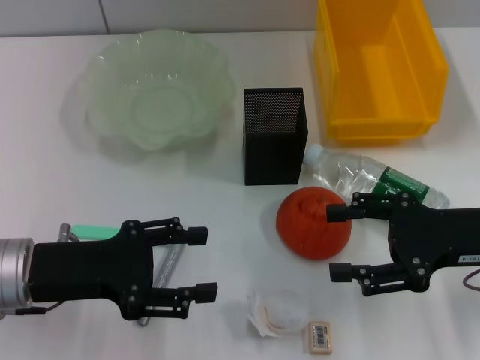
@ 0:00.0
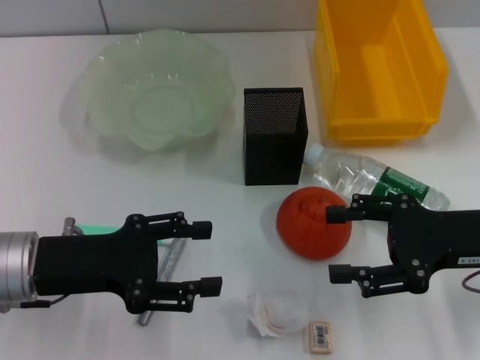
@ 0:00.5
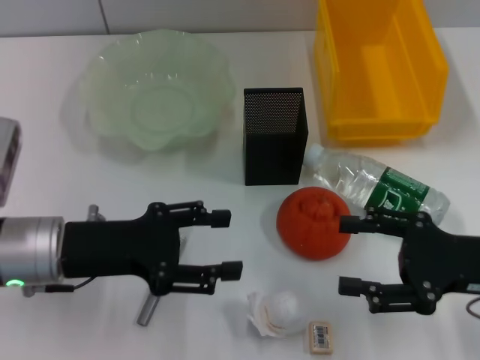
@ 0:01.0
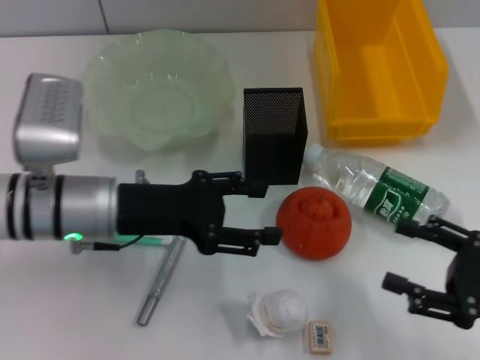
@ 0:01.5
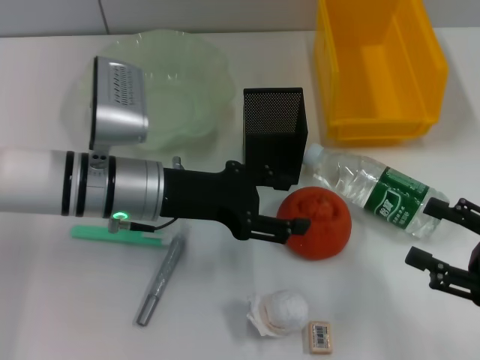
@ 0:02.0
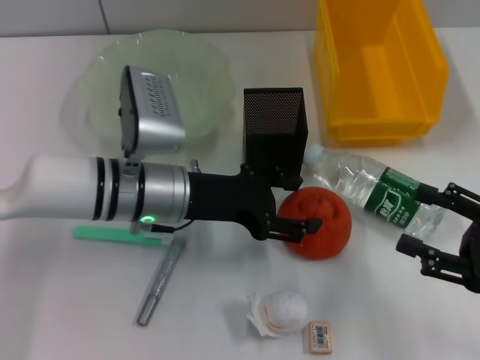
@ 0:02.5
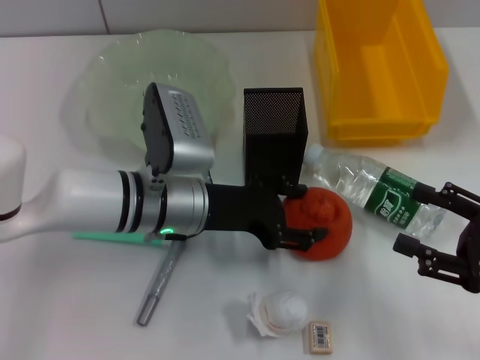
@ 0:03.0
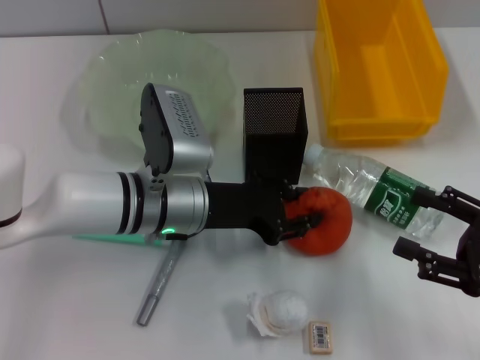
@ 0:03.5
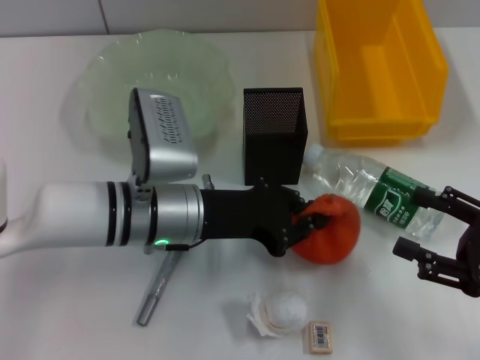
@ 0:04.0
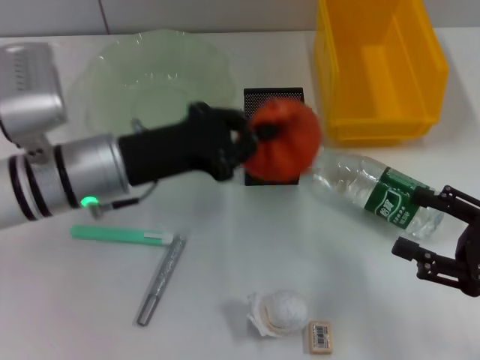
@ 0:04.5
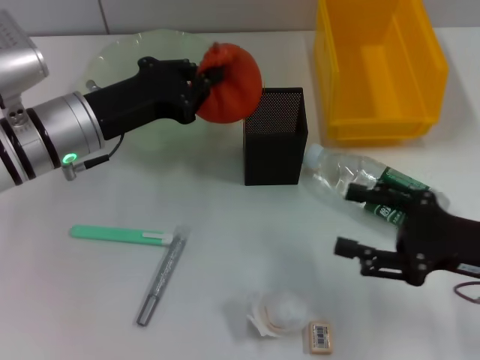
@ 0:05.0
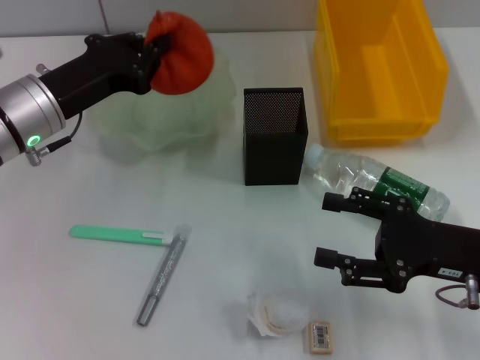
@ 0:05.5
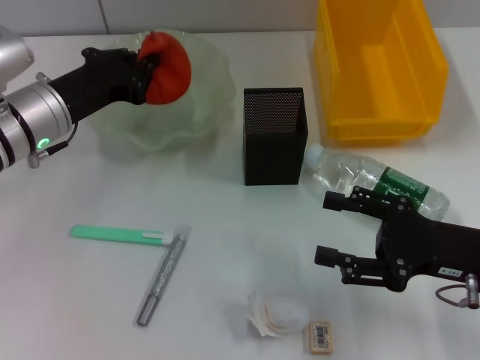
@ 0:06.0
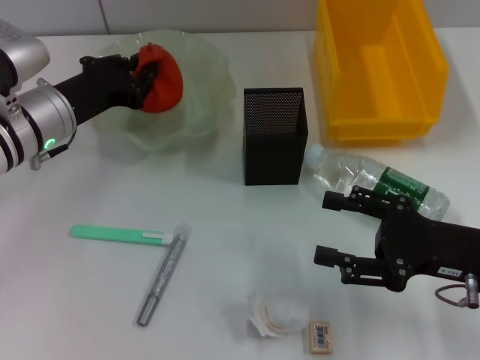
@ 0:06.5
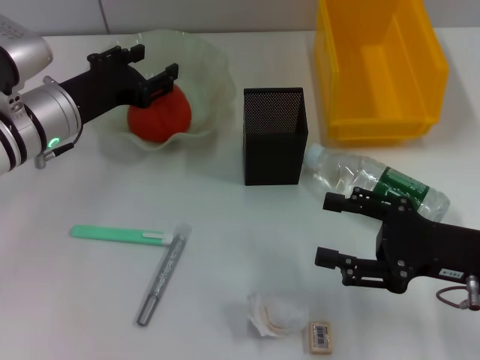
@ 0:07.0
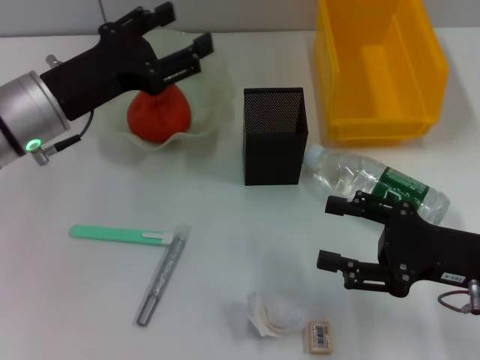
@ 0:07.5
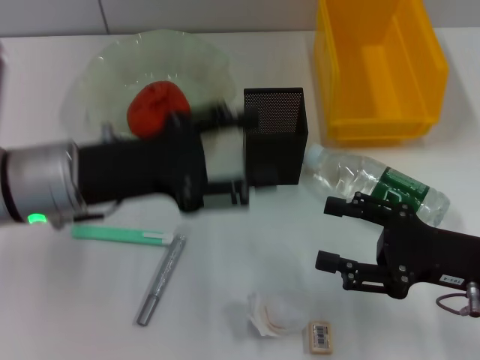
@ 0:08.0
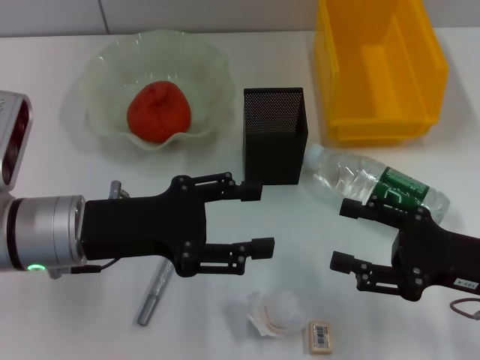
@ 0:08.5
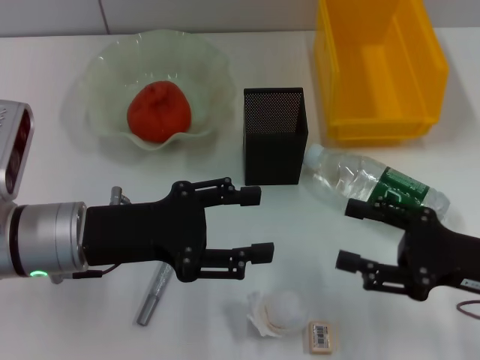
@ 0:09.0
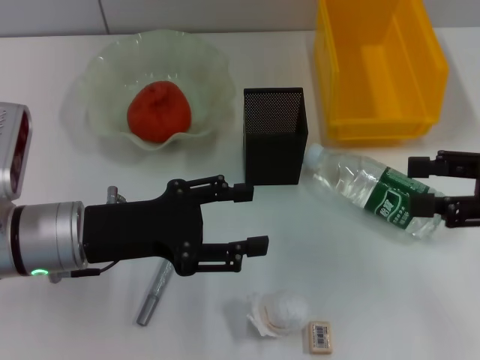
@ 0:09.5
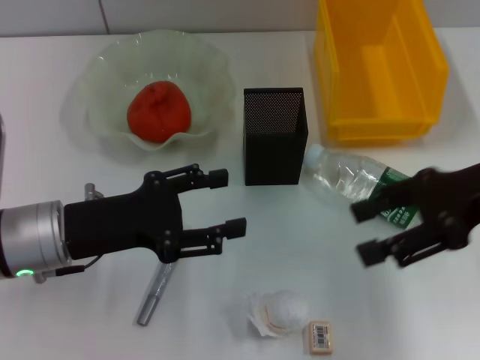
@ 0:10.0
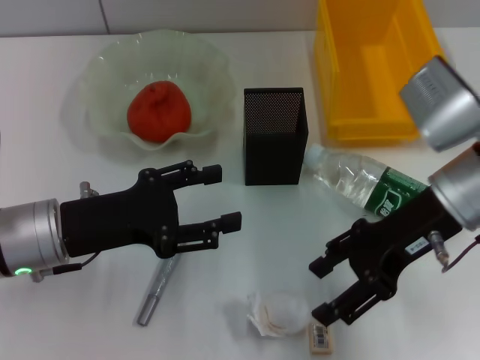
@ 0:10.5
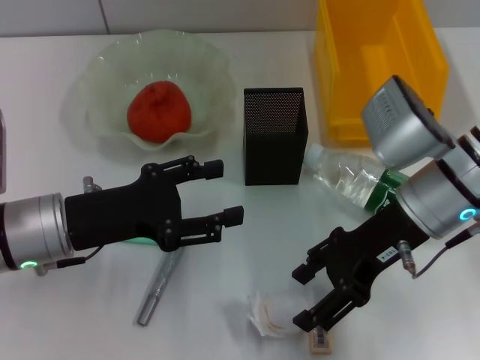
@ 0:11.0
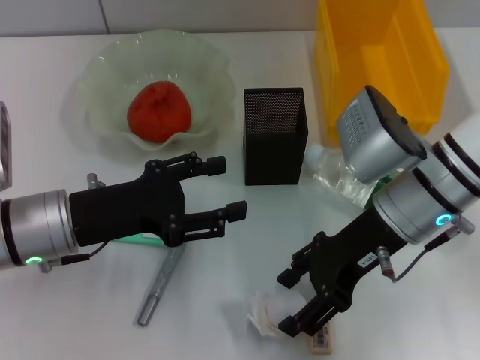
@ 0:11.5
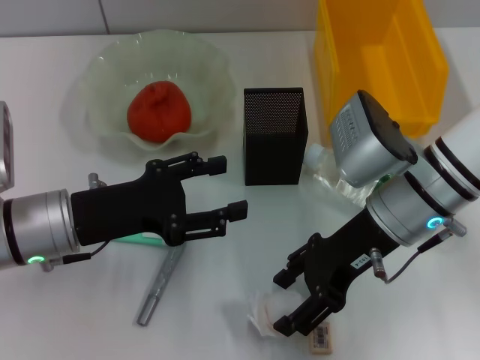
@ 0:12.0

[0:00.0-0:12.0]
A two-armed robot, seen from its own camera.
Step, 0:00.0 to 0:03.0: Grab the orange with the left hand.
Step, 0:03.5 to 0:06.5: Place the orange into the fruit bowl with the left hand.
Step, 0:07.0 to 0:12.0: Grab the paper ball with the right hand.
0:00.0 to 0:02.0: The right gripper is displaced backward and to the right by approximately 10 cm; the left gripper heads to the right and forward, covering some 15 cm.
0:02.0 to 0:04.0: The left gripper closes its fingers.
0:04.0 to 0:06.0: The right gripper is displaced to the left by roughly 5 cm. The left gripper heads to the left and forward, covering roughly 15 cm.
0:06.0 to 0:08.0: The left gripper goes some 5 cm backward, and opens.
0:08.0 to 0:10.0: The left gripper changes place by roughly 5 cm. Meanwhile the right gripper travels upward and forward by some 15 cm.
0:10.0 to 0:12.0: The right gripper shifts about 15 cm to the left and downward.

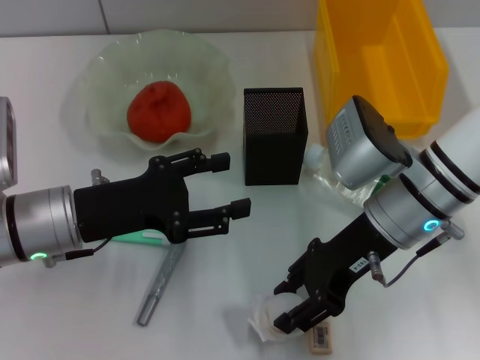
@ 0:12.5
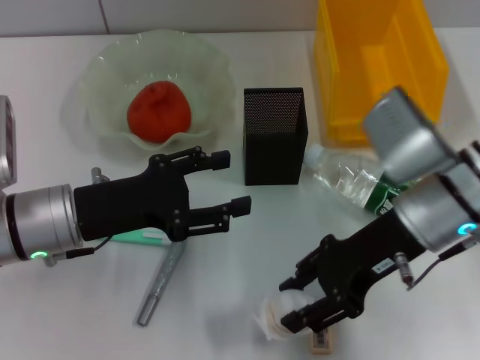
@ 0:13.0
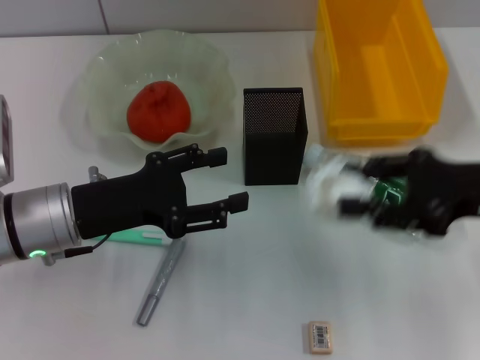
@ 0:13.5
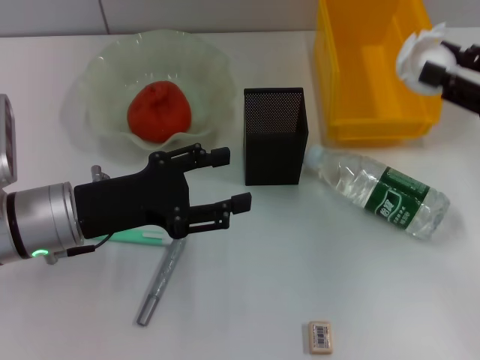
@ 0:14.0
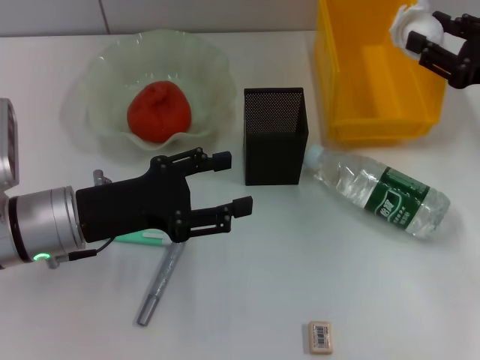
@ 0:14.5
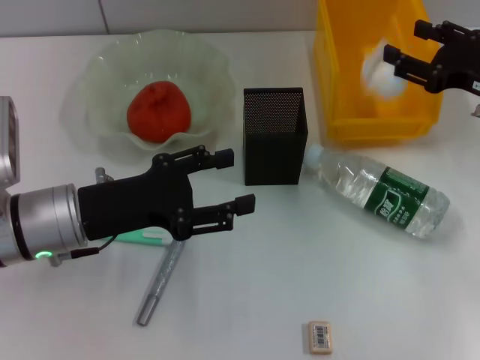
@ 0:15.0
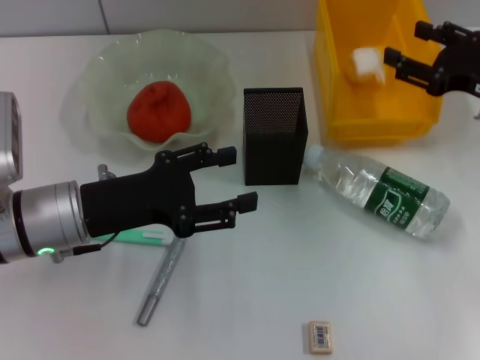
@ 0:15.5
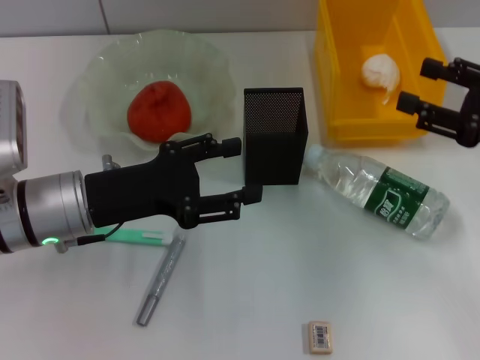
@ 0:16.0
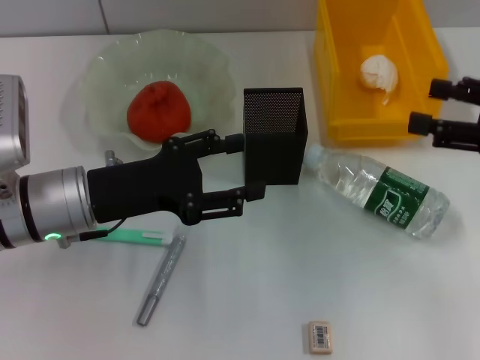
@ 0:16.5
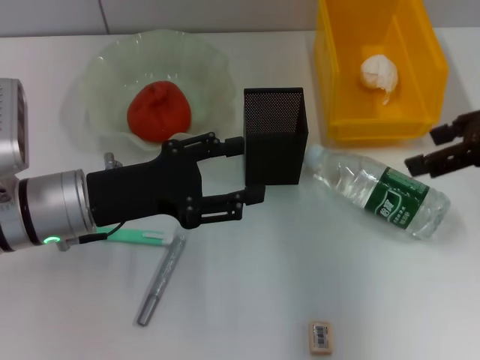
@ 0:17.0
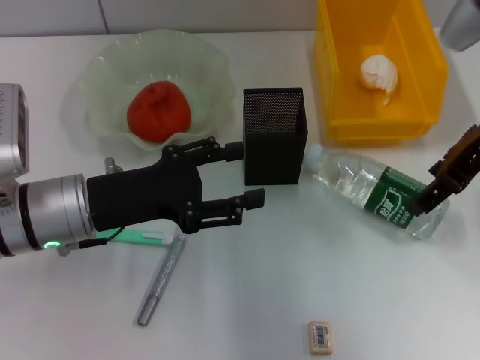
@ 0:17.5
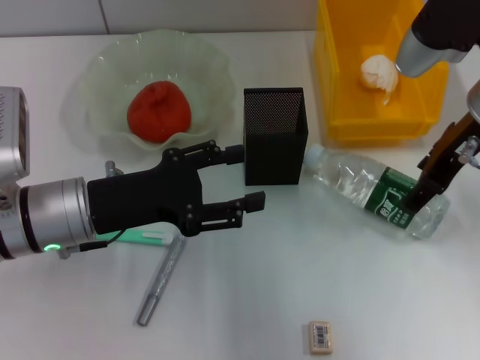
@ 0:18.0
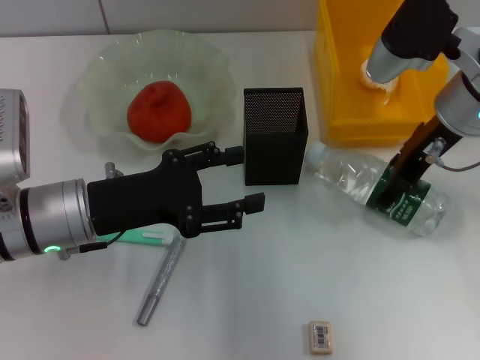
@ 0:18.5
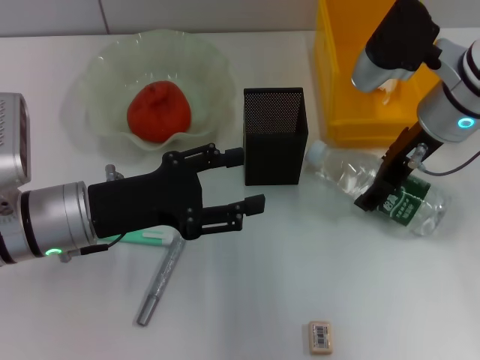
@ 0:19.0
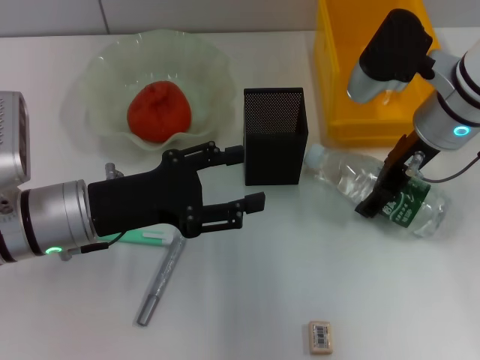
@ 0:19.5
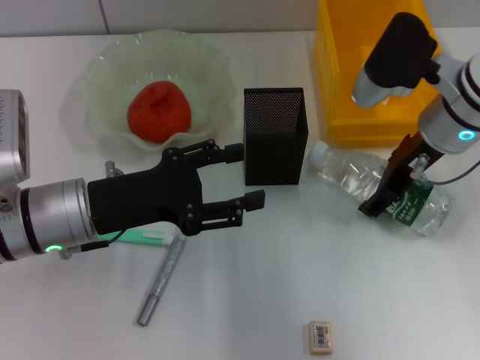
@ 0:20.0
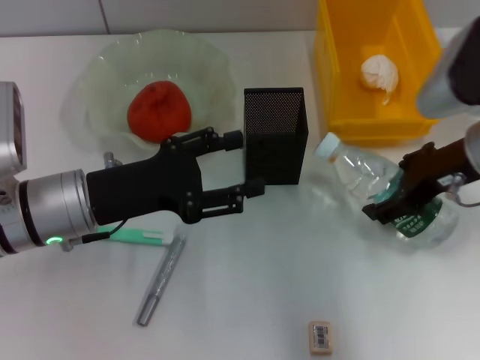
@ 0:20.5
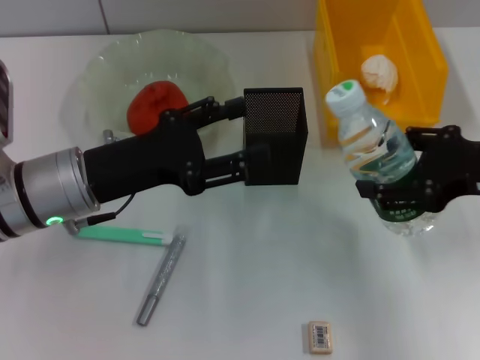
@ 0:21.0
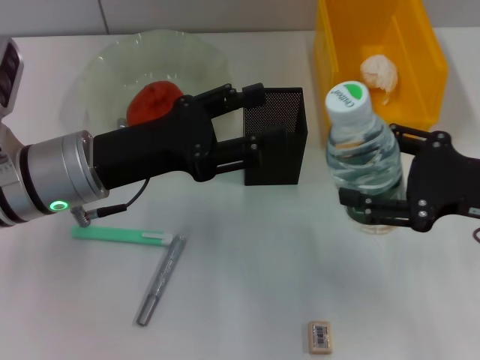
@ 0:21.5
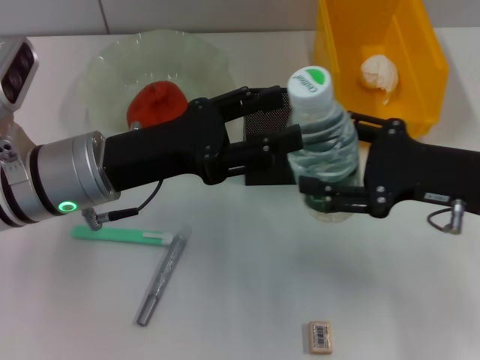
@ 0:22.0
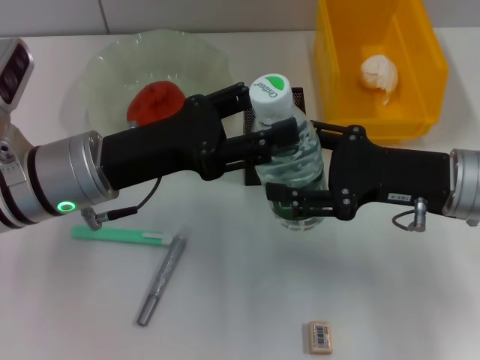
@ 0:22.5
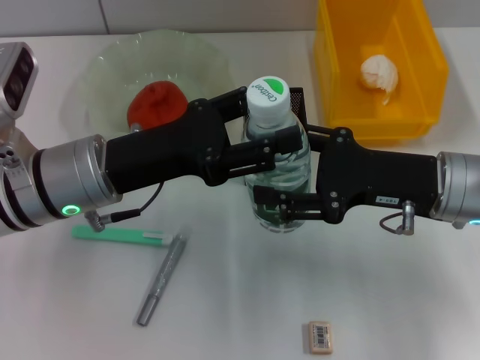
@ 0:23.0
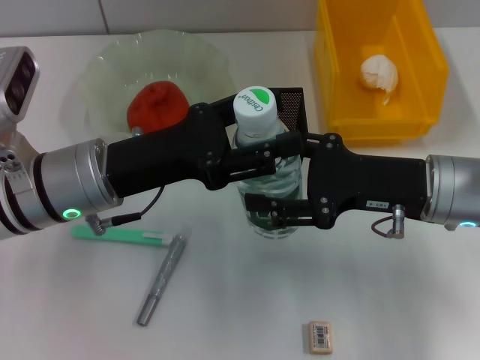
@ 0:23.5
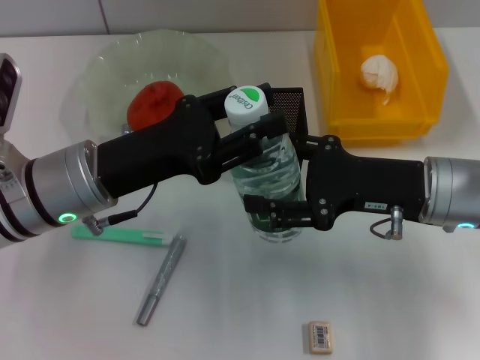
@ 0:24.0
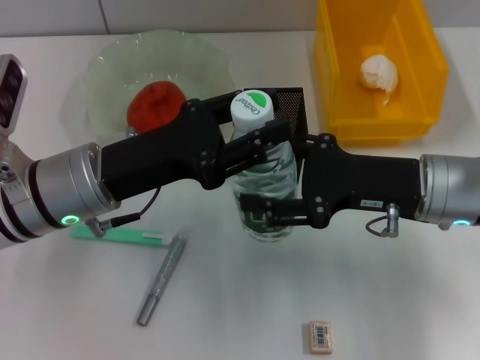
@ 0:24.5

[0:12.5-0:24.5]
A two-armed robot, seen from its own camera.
Step, 0:12.5 to 0:15.0: Place the paper ball into the trash can with the right hand.
Step, 0:15.5 to 0:19.5: Grab the water bottle with the right hand.
0:12.5 to 0:14.5: The right gripper heads to the right, covering about 15 cm.
0:14.5 to 0:16.5: The right gripper heads backward, covering roughly 5 cm, and opens up.
0:16.5 to 0:18.5: The right gripper goes roughly 15 cm to the left and forward.
0:18.5 to 0:20.5: The right gripper changes place by some 5 cm.
0:22.5 to 0:24.5: The left gripper closes up.

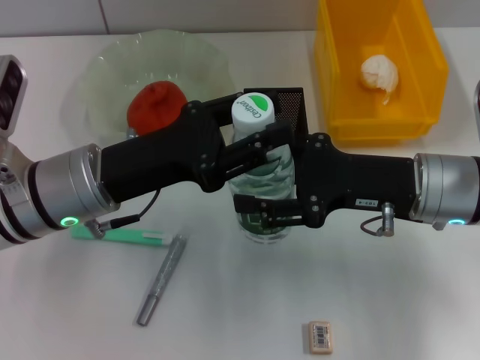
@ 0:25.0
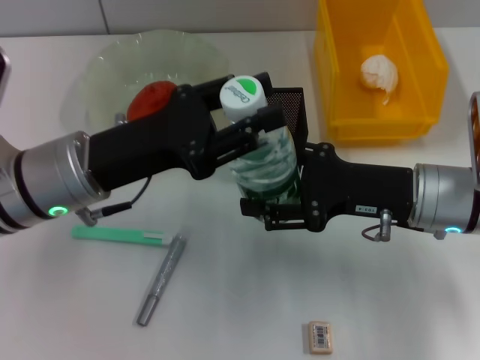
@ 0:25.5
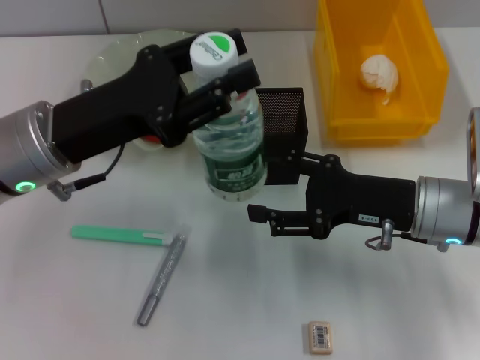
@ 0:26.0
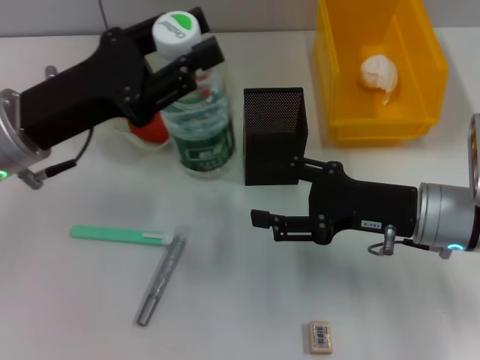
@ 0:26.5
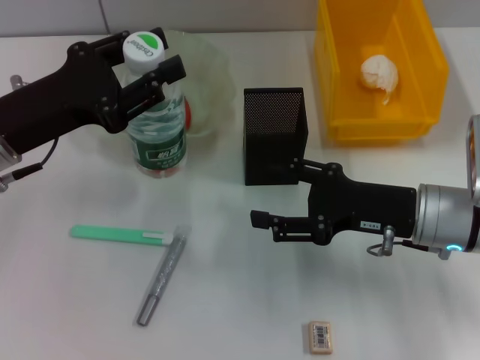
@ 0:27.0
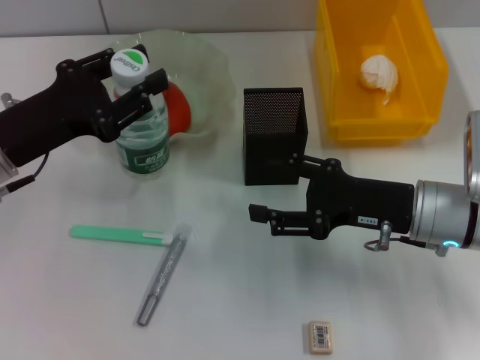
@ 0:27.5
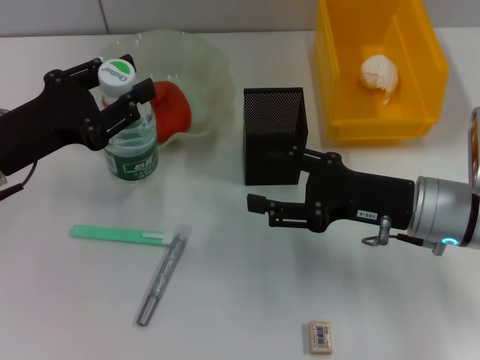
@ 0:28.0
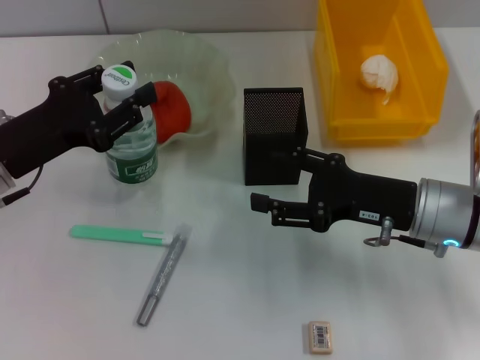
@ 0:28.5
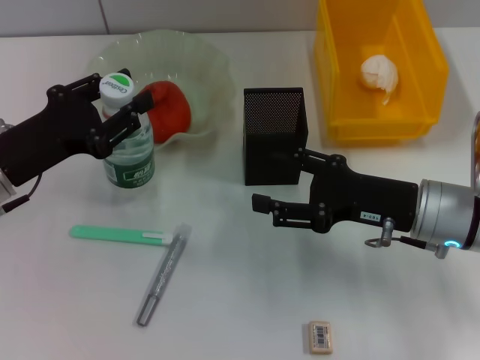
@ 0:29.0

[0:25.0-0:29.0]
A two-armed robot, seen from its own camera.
0:25.0 to 0:27.0: The left gripper travels to the left by about 5 cm.
0:27.0 to 0:29.0: The left gripper moves approximately 5 cm.
